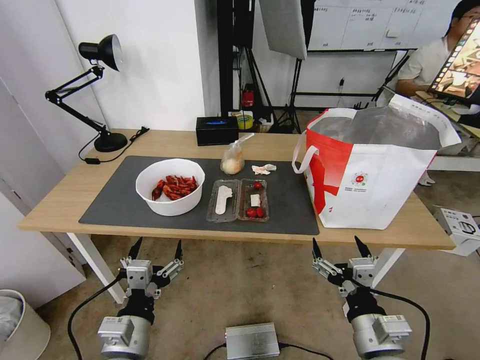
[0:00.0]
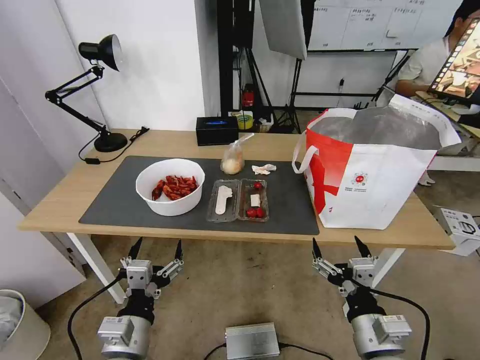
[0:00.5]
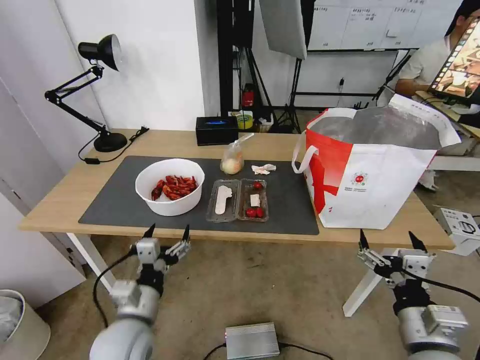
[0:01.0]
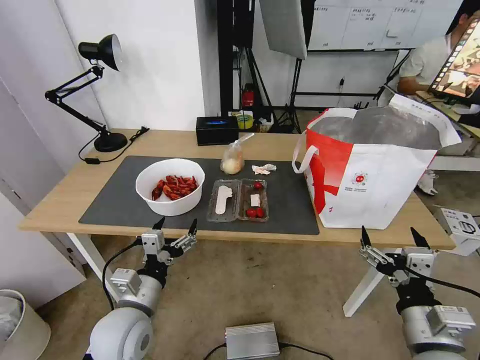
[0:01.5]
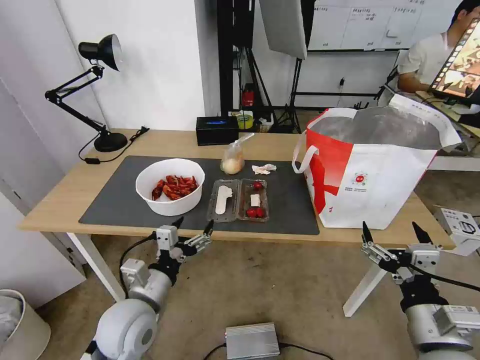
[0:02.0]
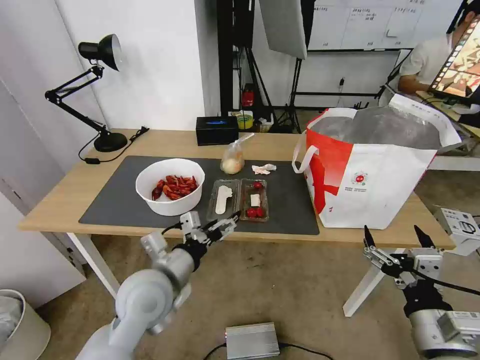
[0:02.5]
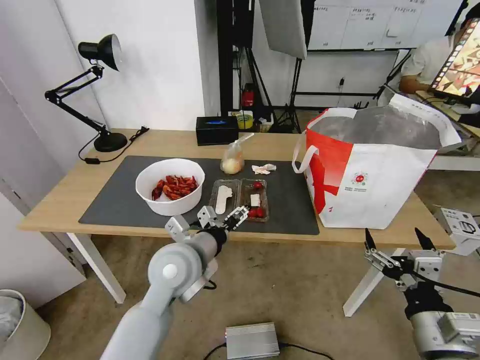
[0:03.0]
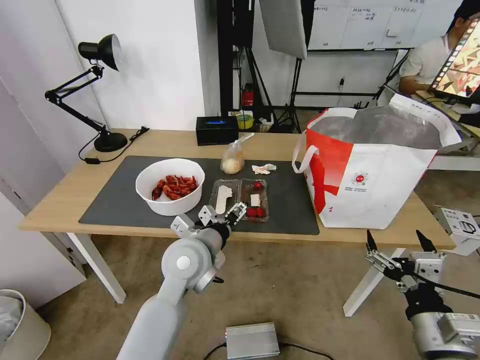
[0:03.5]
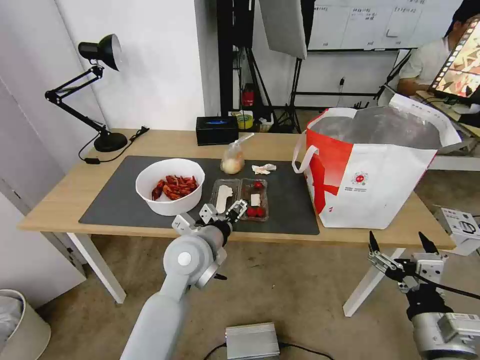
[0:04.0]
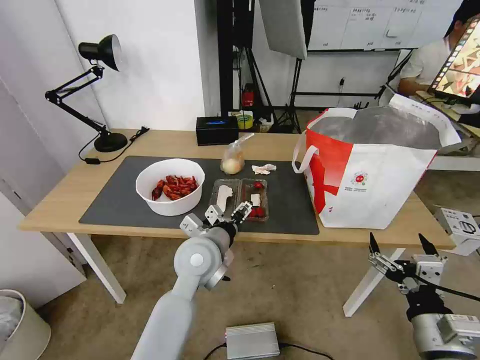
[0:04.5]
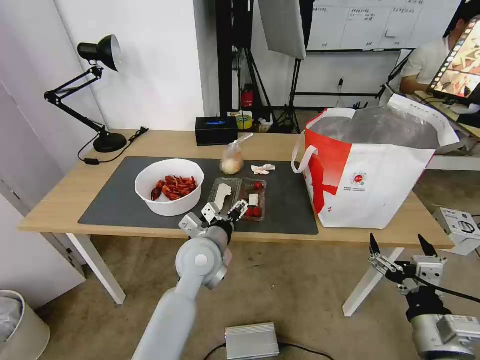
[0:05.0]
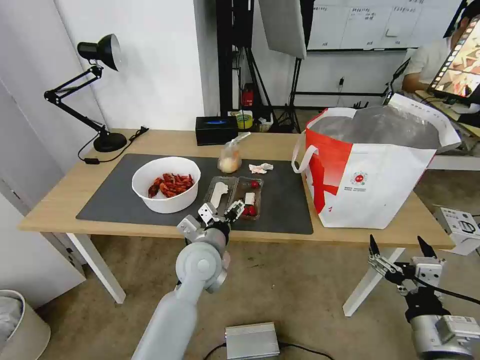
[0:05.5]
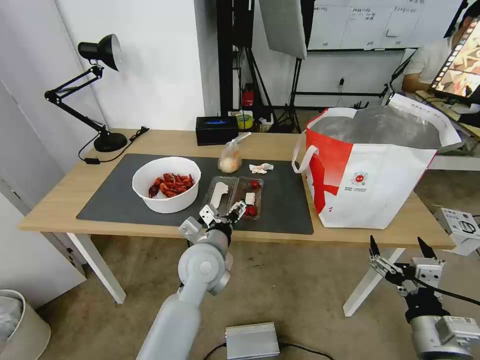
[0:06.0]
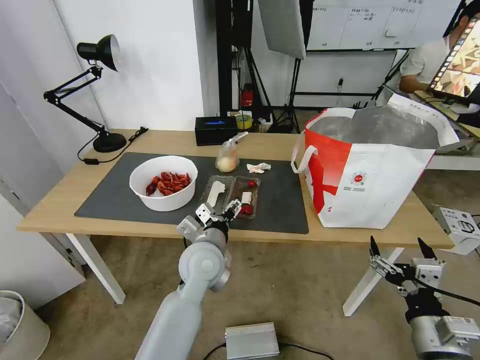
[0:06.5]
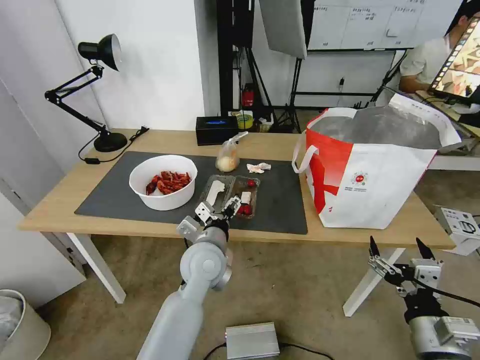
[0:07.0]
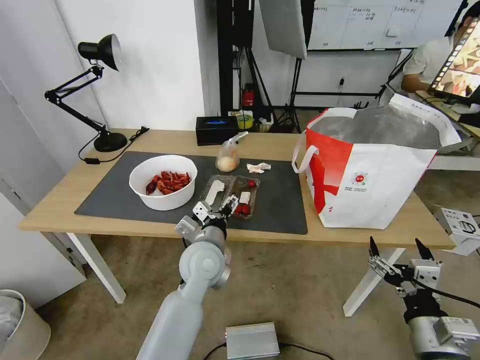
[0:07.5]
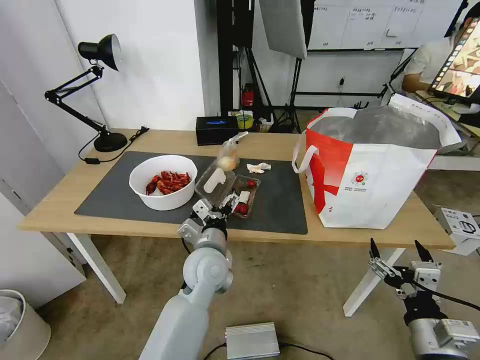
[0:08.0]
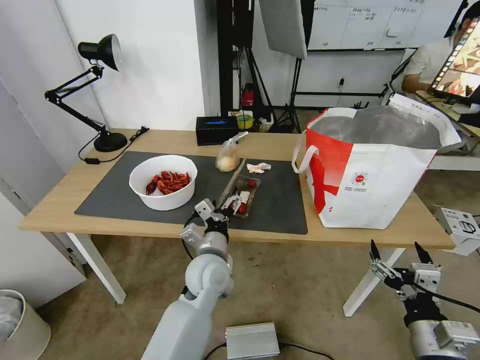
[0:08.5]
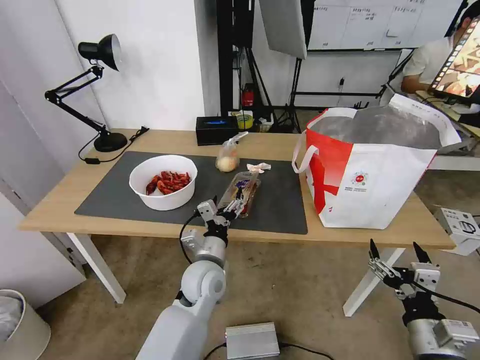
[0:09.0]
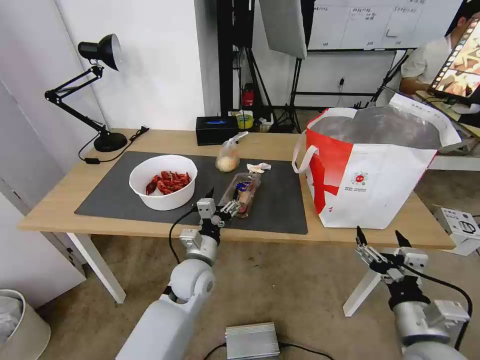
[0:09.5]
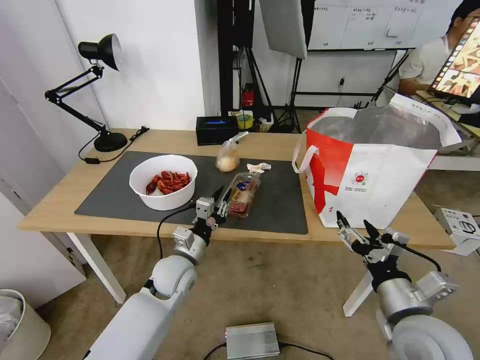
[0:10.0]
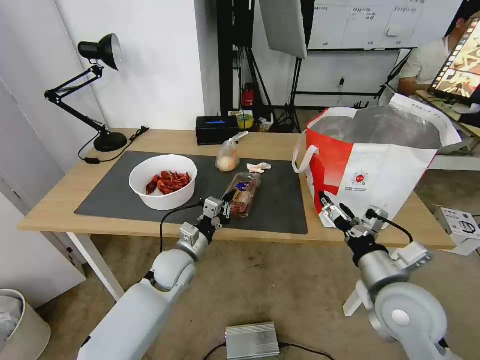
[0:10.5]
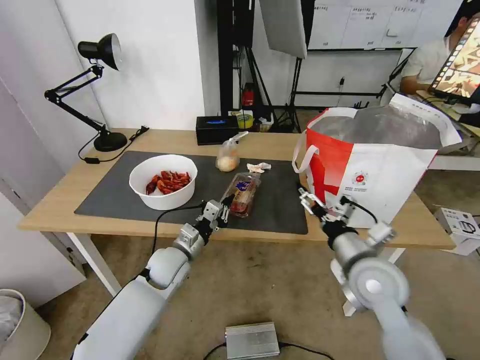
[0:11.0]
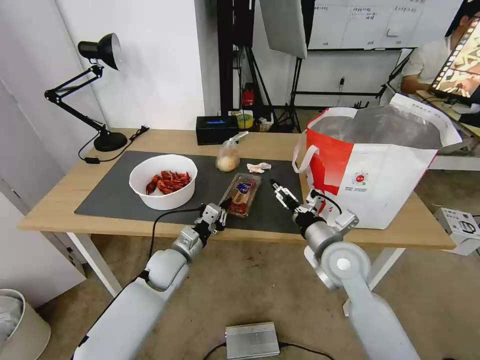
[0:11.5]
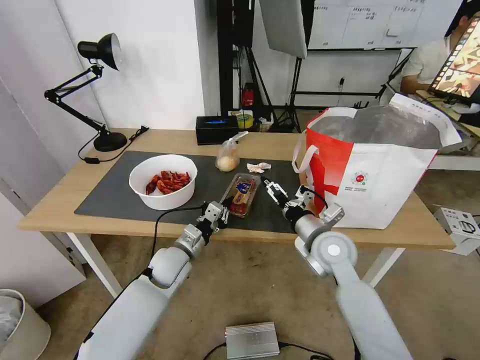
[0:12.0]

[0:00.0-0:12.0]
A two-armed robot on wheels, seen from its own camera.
Task of the whole recording: Pick up the trash from the table and place it into the takeout bag.
0:02.0 to 0:04.0: The left gripper goes about 15 cm to the right, forward and upward.
0:04.0 to 0:06.0: The grippers move only a little.
0:06.0 to 0:08.0: The grippers stay close to where they were, moving slightly.
0:08.0 to 0:10.0: The right gripper heads forward, covering roughly 5 cm, while the left gripper shifts about 10 cm to the left and downward, and closes.
0:10.0 to 0:12.0: The right gripper goes some 20 cm forward and to the left.

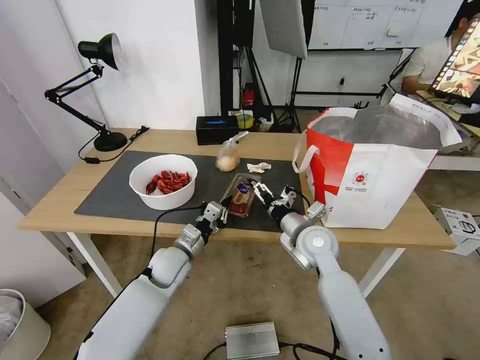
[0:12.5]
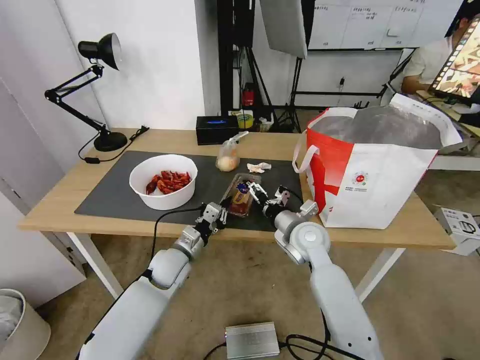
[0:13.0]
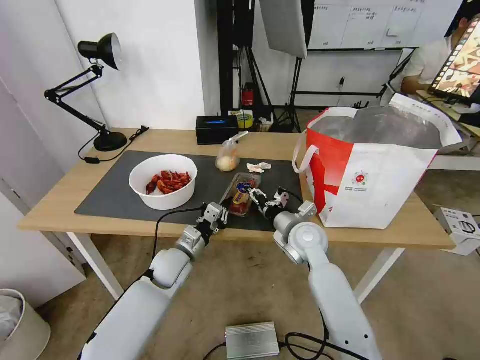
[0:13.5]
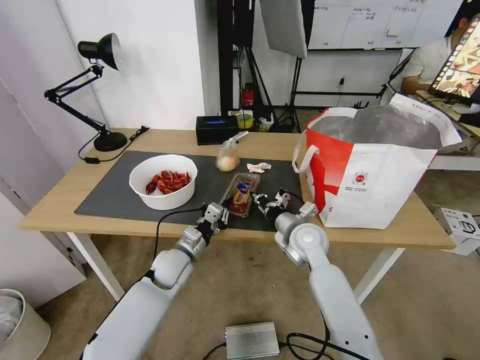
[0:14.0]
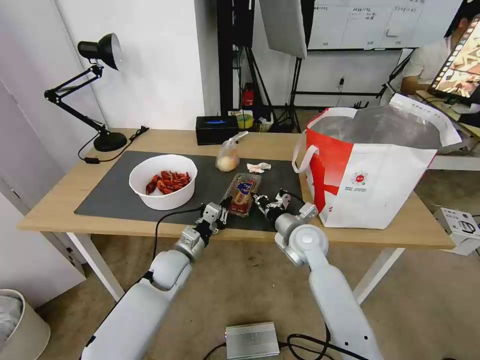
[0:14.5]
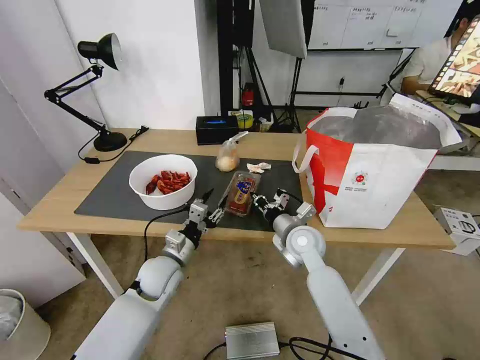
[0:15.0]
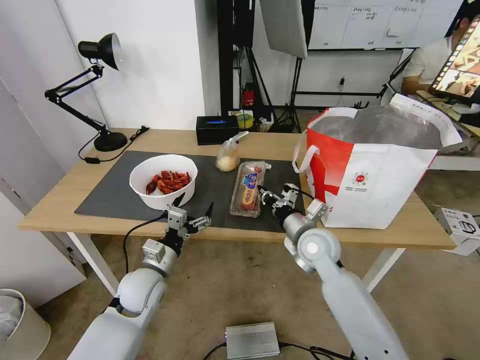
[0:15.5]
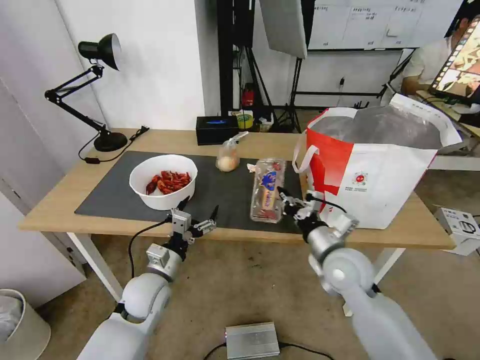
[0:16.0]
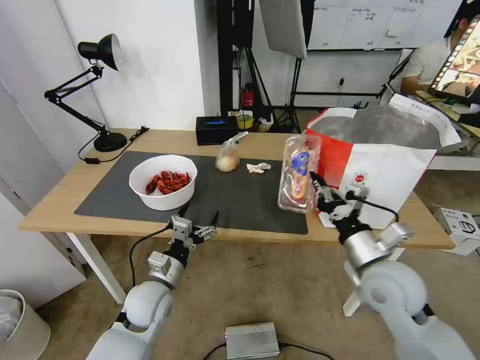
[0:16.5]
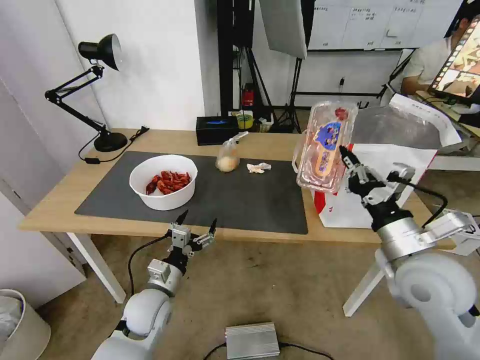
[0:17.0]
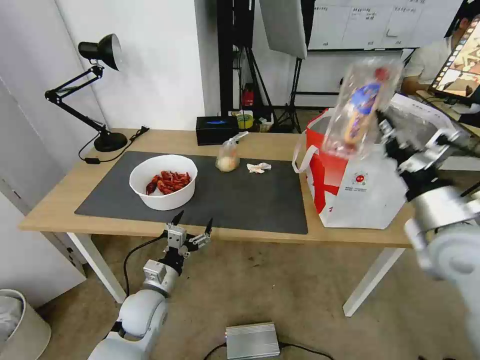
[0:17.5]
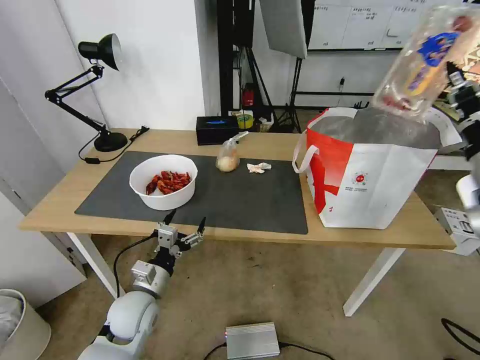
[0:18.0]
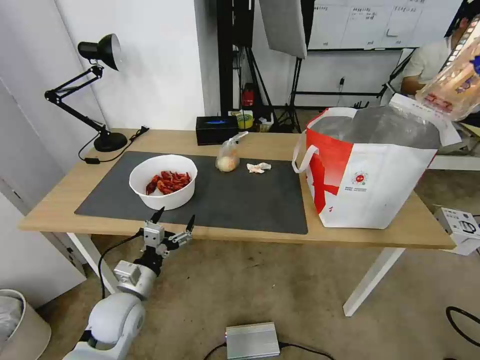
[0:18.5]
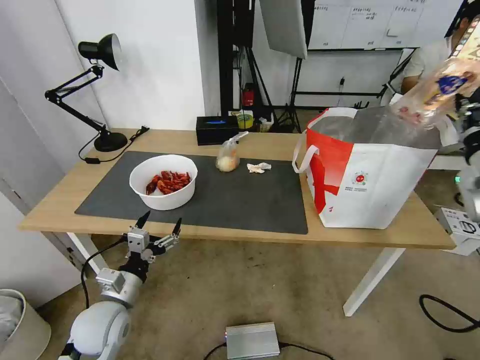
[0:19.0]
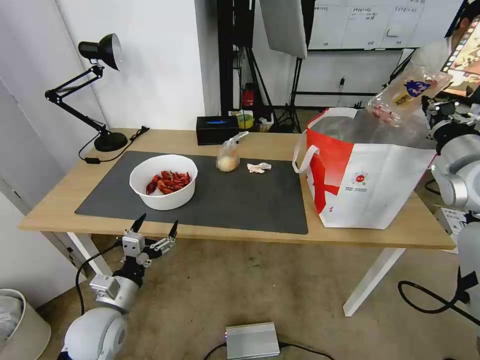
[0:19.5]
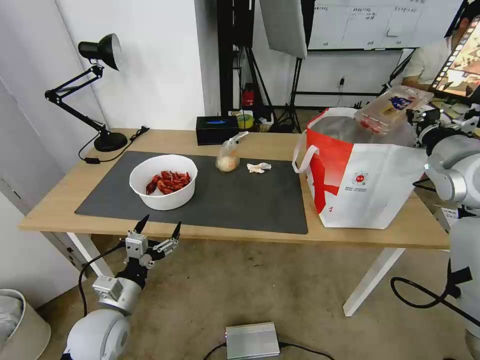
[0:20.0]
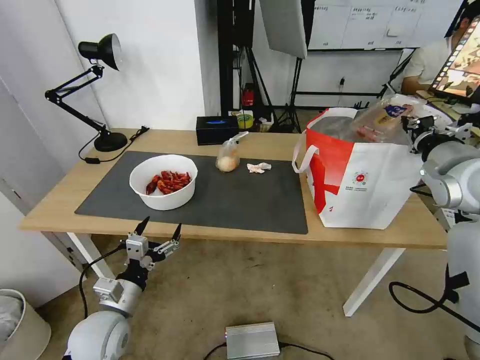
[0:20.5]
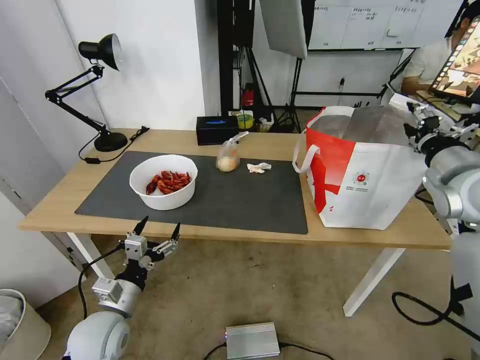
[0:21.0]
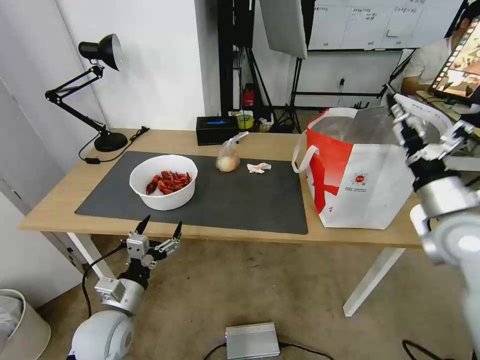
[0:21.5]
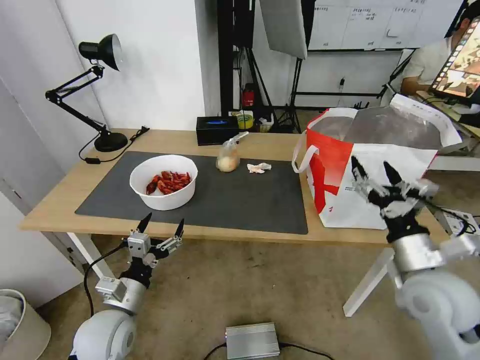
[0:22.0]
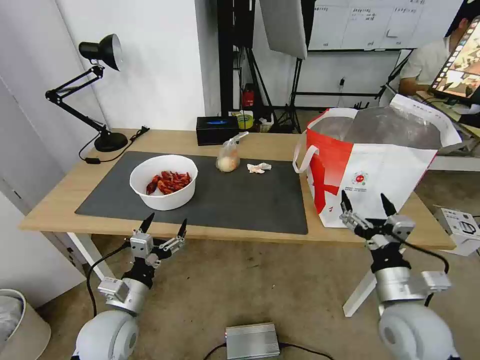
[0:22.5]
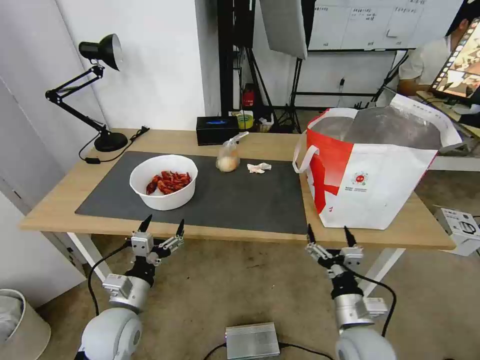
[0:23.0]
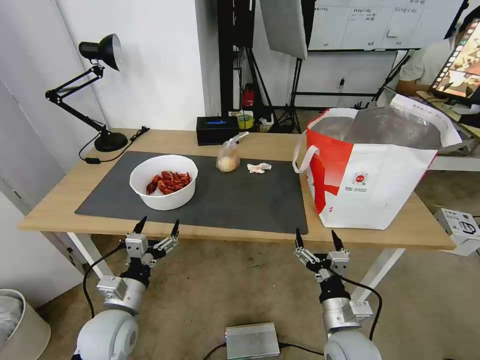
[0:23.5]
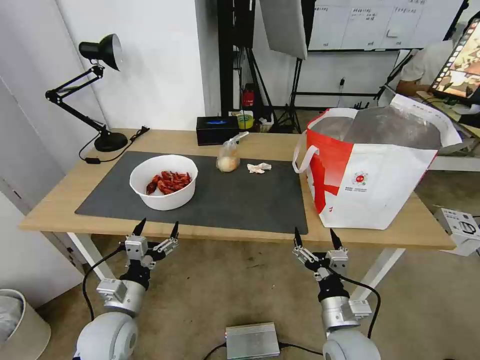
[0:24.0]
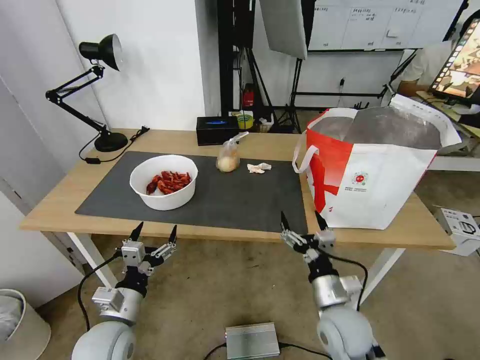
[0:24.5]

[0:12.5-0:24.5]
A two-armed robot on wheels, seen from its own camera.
Task of the whole recording: Pick up the trash from the table and place it into the takeout bag.
0:12.5 to 0:14.5: The right gripper closes.
0:14.5 to 0:16.5: The left gripper travels backward by about 10 cm, and opens up, while the right gripper is displaced backward, to the right and upward by approximately 20 cm.
0:16.5 to 0:18.5: The right gripper moves to the right and upward, roughly 25 cm, while the left gripper shifts about 5 cm to the left.
0:18.5 to 0:20.5: The right gripper moves to the left and forward, roughly 10 cm.
0:20.5 to 0:22.5: The right gripper is displaced downward, backward and to the left by about 30 cm, and opens up.
0:22.5 to 0:24.5: The right gripper moves to the left and downward, some 10 cm.

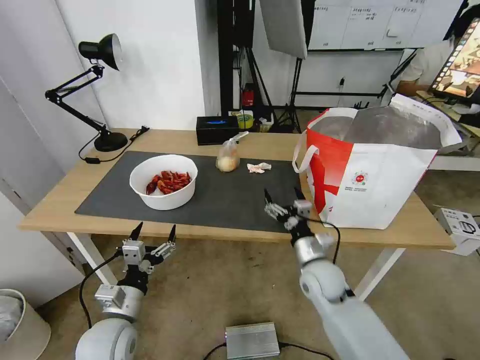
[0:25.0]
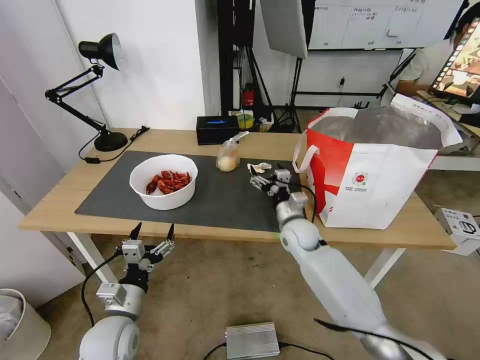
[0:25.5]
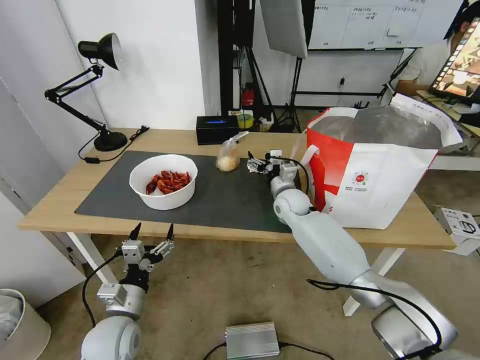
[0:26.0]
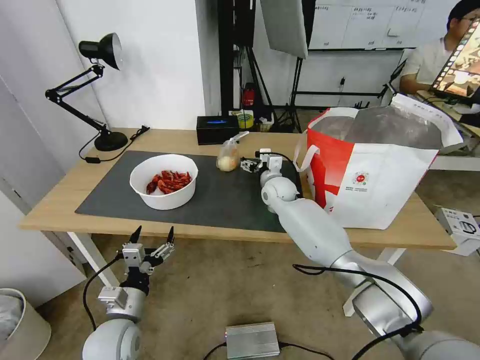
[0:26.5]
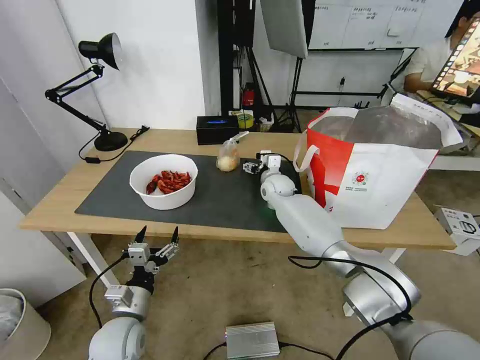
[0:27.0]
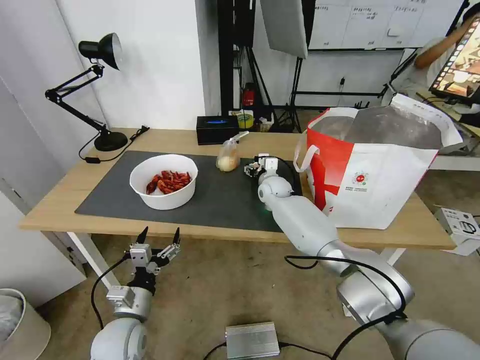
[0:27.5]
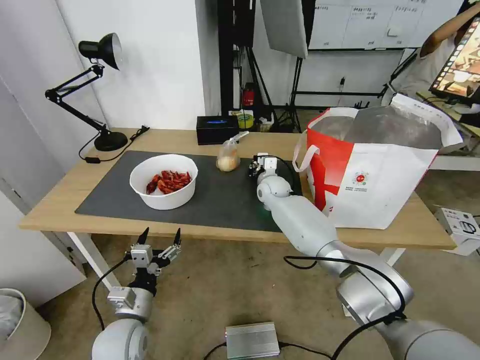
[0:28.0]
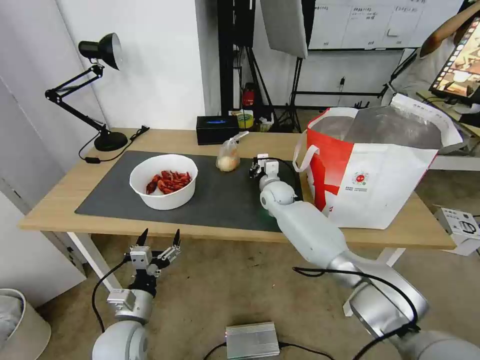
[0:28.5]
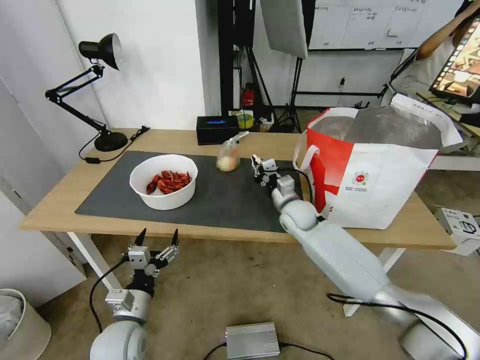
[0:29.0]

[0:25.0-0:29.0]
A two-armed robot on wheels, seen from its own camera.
Task of the whole recording: Pick up the trash from the table and place it into the takeout bag.
0:25.0 to 0:27.0: The right gripper goes approximately 25 cm forward.
0:27.0 to 0:29.0: The right gripper is displaced backward by some 10 cm, and closes.
